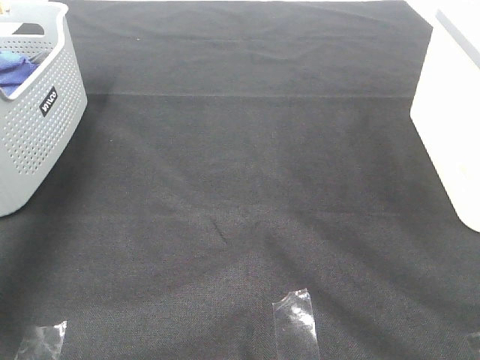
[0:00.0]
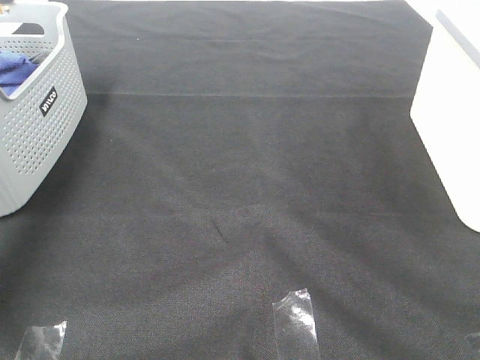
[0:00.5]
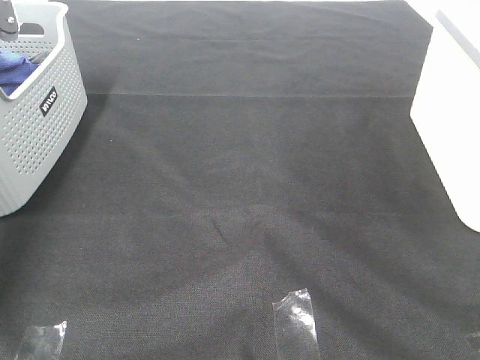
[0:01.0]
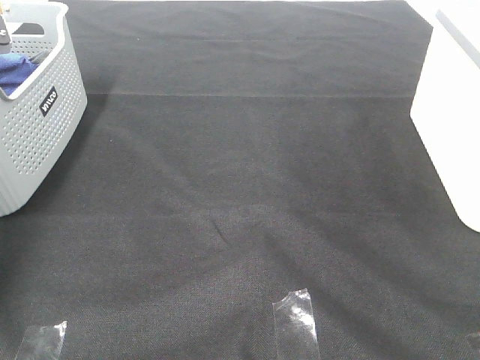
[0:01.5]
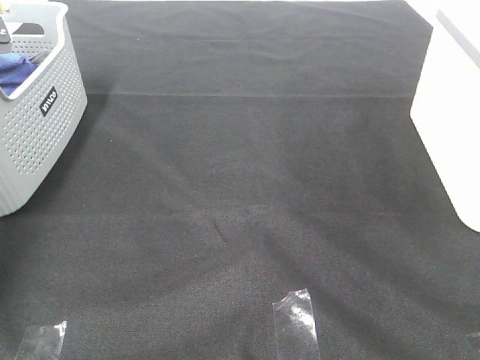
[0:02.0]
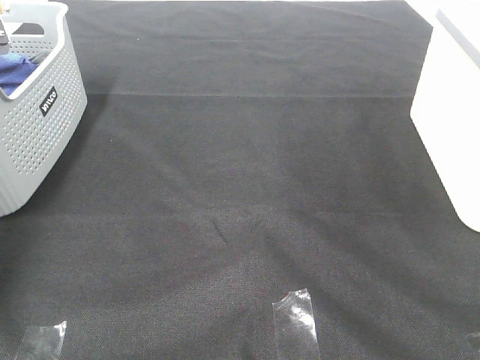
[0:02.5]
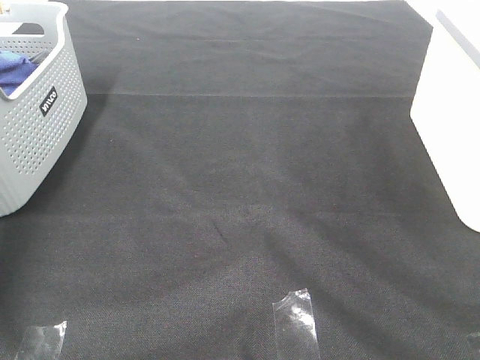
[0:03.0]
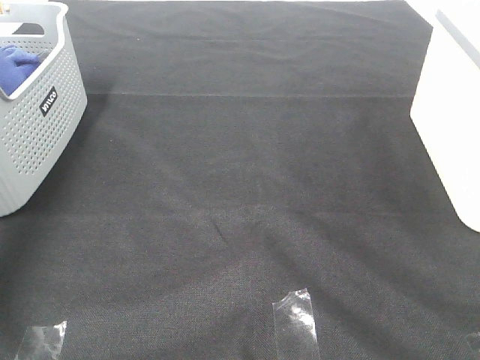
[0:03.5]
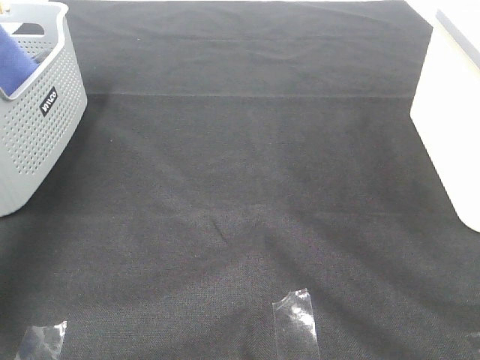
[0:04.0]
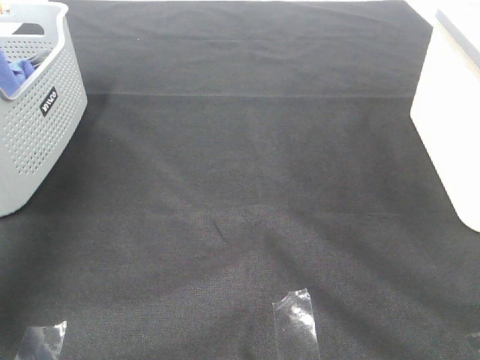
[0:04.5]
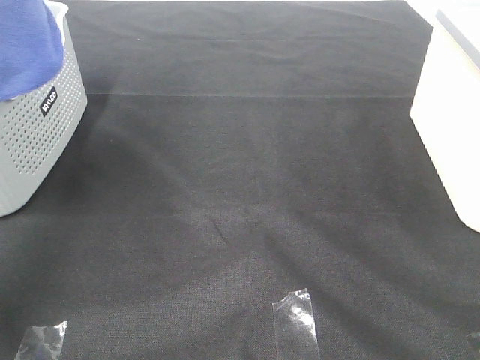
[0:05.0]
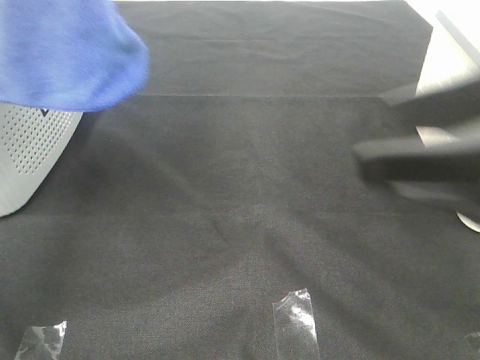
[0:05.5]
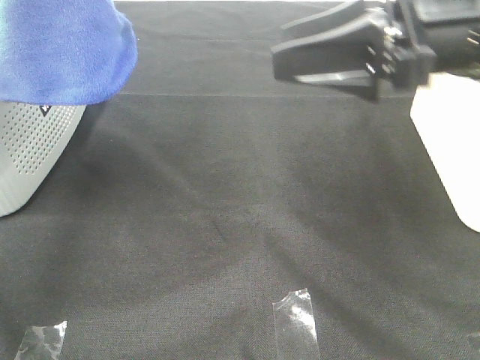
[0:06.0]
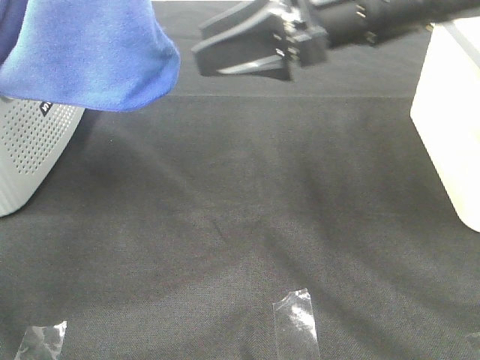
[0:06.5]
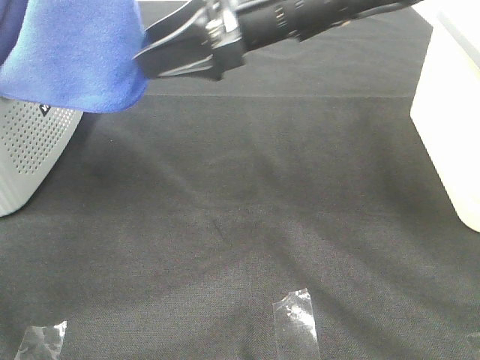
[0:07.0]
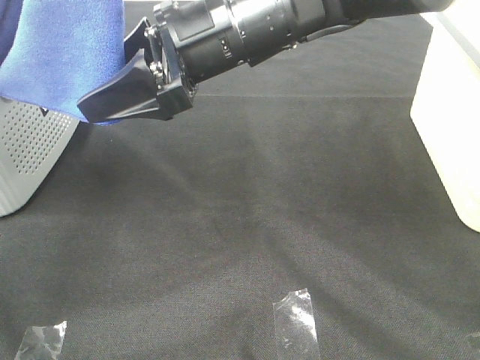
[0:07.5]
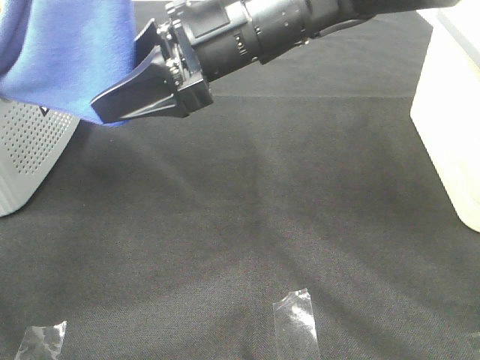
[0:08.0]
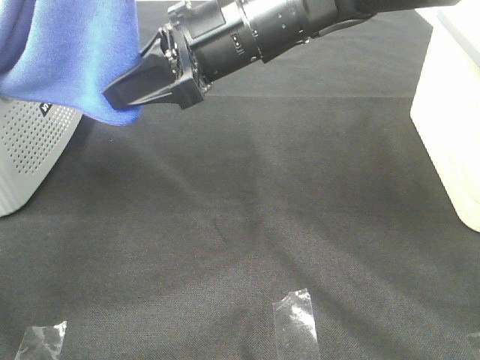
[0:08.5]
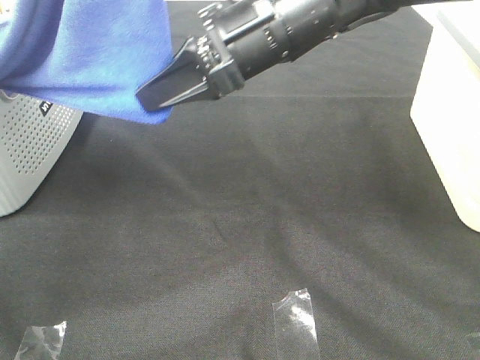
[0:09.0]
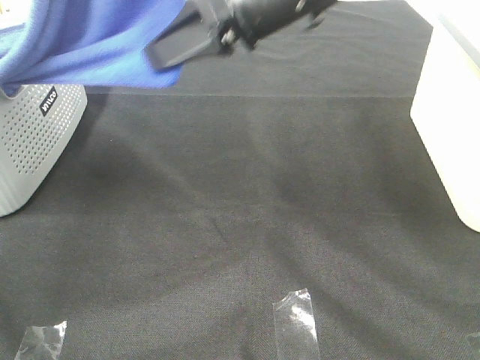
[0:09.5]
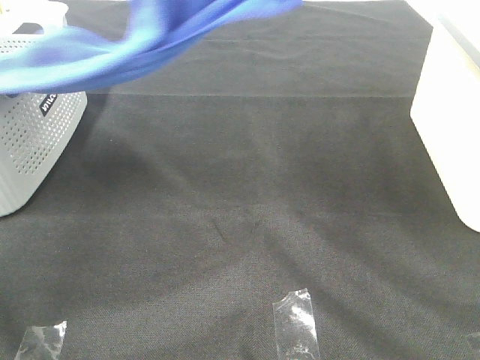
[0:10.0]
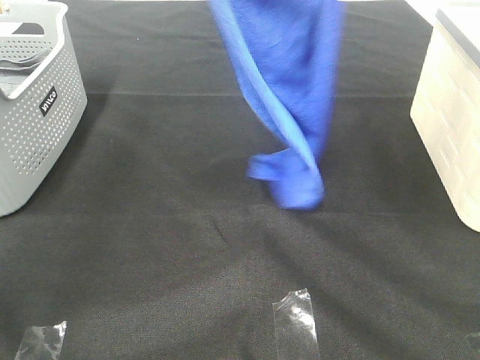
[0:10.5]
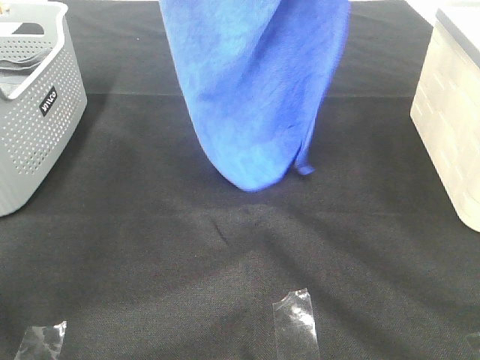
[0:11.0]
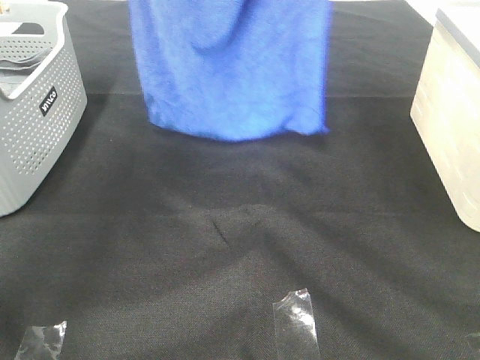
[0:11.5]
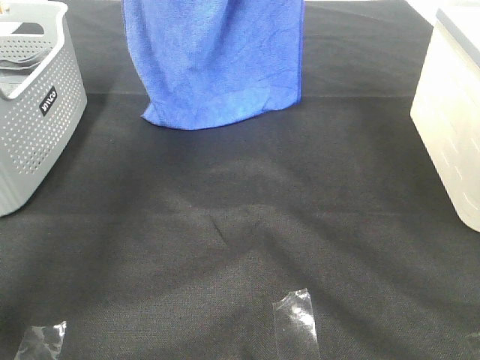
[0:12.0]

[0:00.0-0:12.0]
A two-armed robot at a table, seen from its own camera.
Task of the whole recording: Remove the towel and place it.
Step, 0:05.0 to 0:08.0: Right hand: grab a corner of the blue towel and straighten it.
0:00.0 to 0:02.0: The left gripper travels downward and forward by about 25 cm, and closes its fingers.
0:02.0 to 0:04.0: The left gripper moves upward and backward, roughly 40 cm.
0:04.0 to 0:06.0: The left gripper is displaced to the right by roughly 15 cm. The right gripper moves forward and to the left, some 30 cm.
0:06.0 to 0:08.0: The right gripper is displaced to the left by about 15 cm.
0:08.0 to 0:10.0: The right gripper travels upward and to the right by roughly 20 cm, and closes.
0:10.0 to 0:12.0: The right gripper goes about 15 cm forward. Meanwhile the left gripper moves forward and downward, roughly 20 cm.

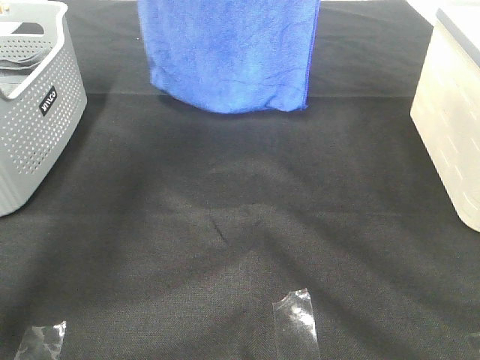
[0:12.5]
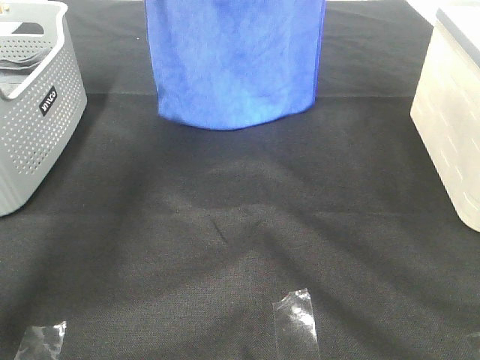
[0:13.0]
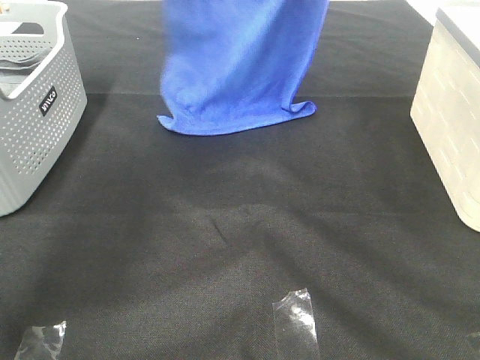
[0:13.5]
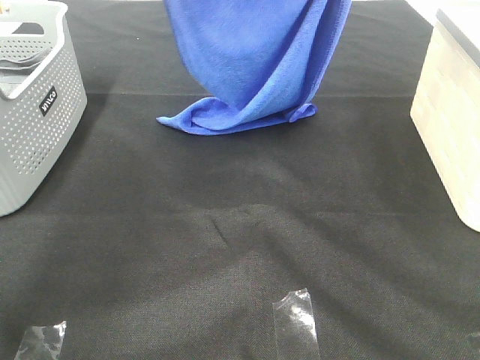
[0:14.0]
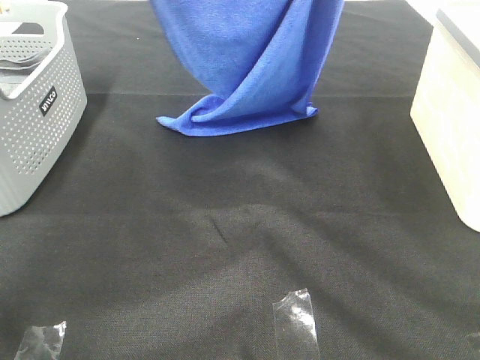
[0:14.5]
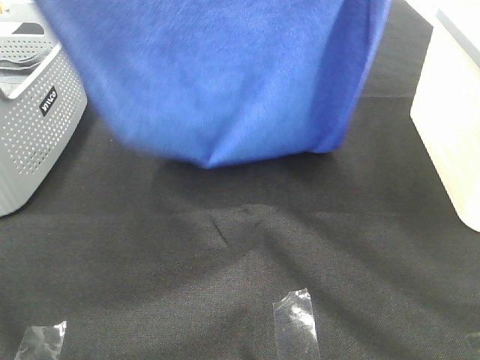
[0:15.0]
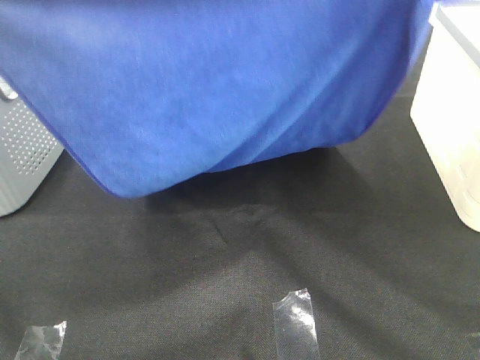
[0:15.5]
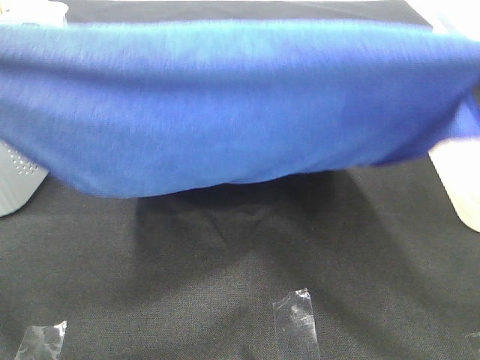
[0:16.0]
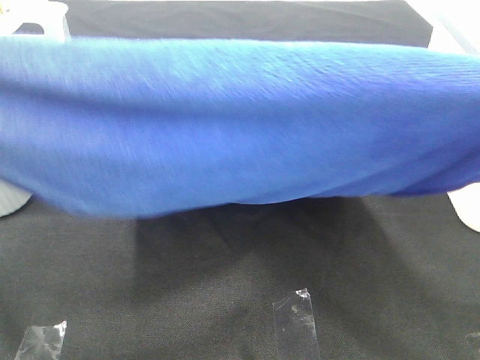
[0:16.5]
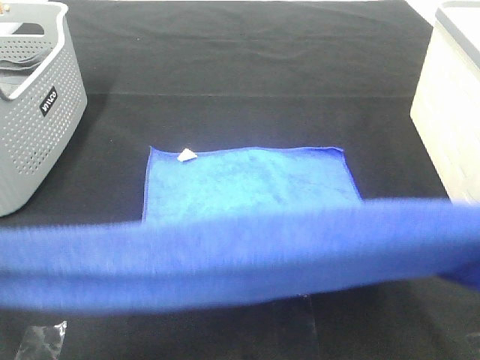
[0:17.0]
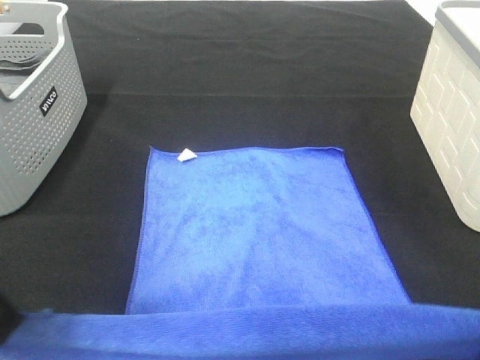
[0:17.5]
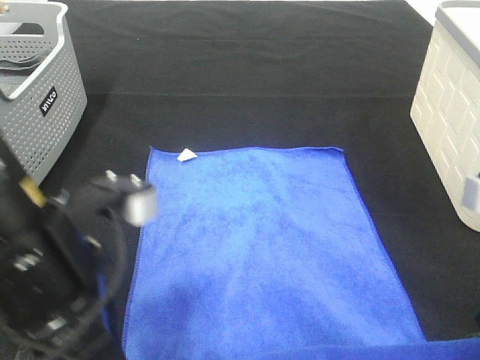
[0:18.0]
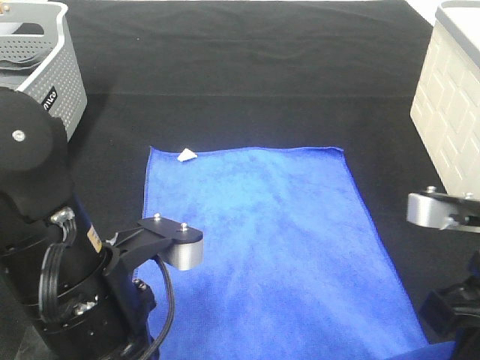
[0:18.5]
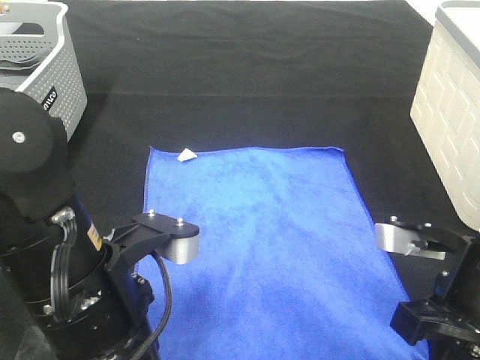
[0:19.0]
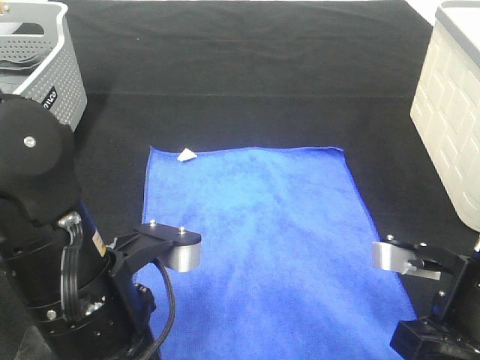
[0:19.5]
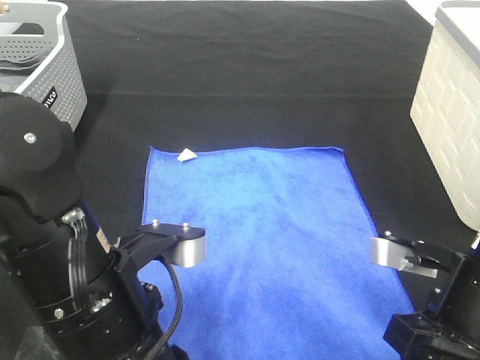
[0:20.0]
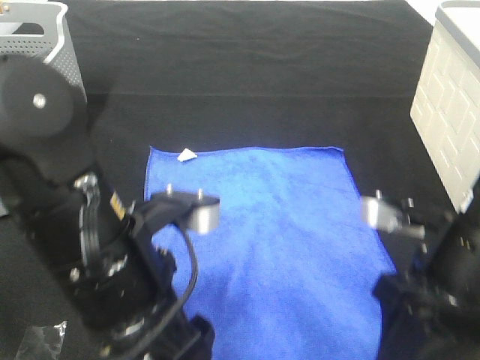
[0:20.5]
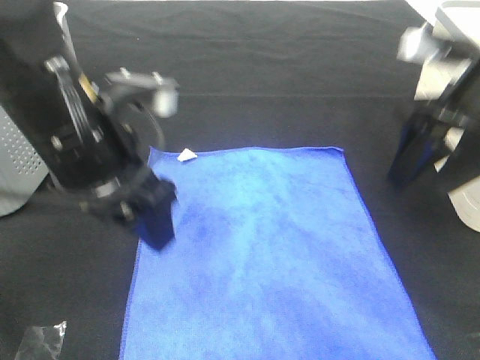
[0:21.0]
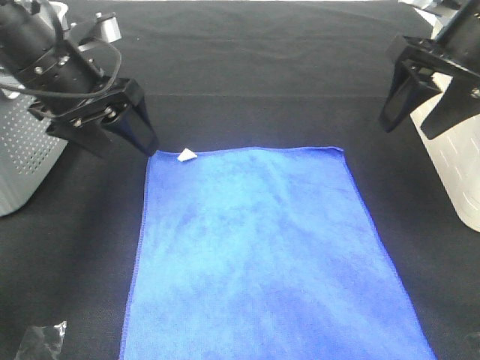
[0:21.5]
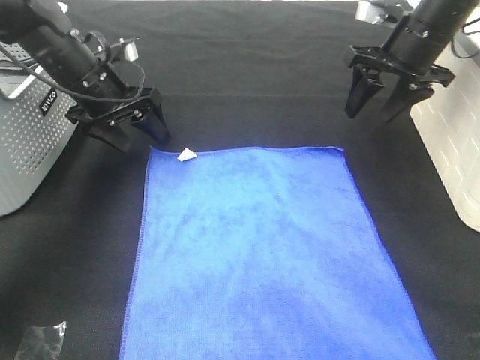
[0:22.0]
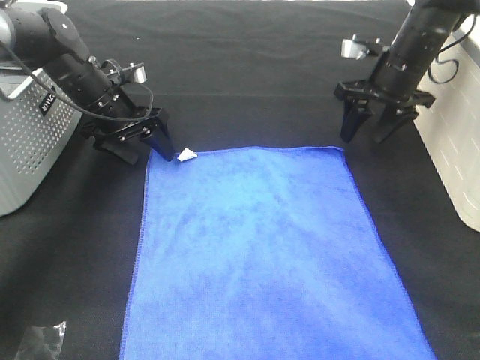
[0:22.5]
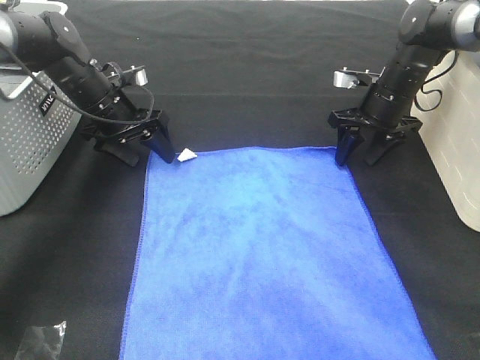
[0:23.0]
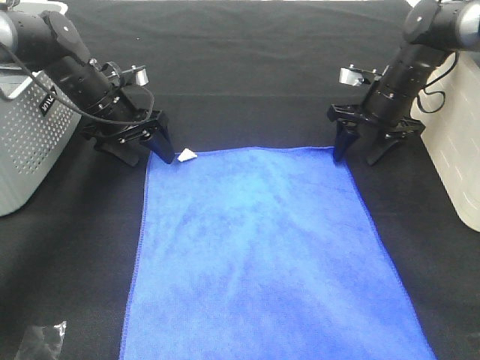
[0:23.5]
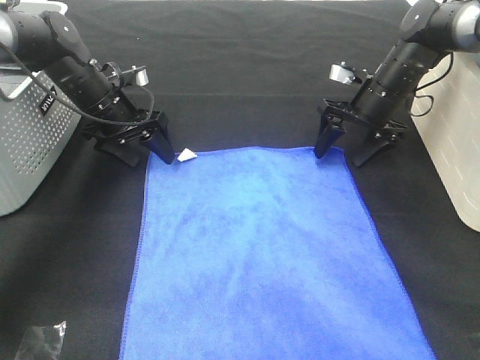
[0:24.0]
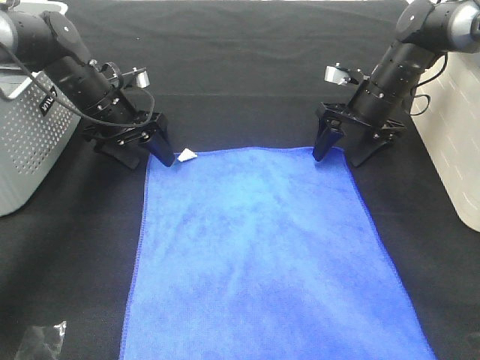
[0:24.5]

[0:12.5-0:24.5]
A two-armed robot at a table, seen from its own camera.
Task of the whole recording: Remove the towel and place it.
Step, 0:12.5 to 0:15.0: Left hand: spread the blue towel flat on the table.
Step, 0:12.5 to 0:15.0: Right hand: spread the blue towel flat on the table.
Step, 0:15.5 to 0:23.0: Left hand:adjust the blue towel.
Step, 0:15.5 to 0:23.0: Right hand:adjust the blue towel.
0:12.5 to 0:14.5: The grippers both shift backward by about 10 cm.
0:14.5 to 0:16.5: Both grippers travel together backward, approximately 25 cm.
0:16.5 to 0:18.5: The right gripper travels downward by about 20 cm; the left gripper is displaced downward and to the right by roughly 25 cm.
0:18.5 to 0:20.5: The left gripper opens its fingers; the right gripper opens up.
0:20.5 to 0:22.5: Both grippers move forward, roughly 30 cm.
0:22.5 to 0:24.5: The right gripper changes place by roughly 5 cm.

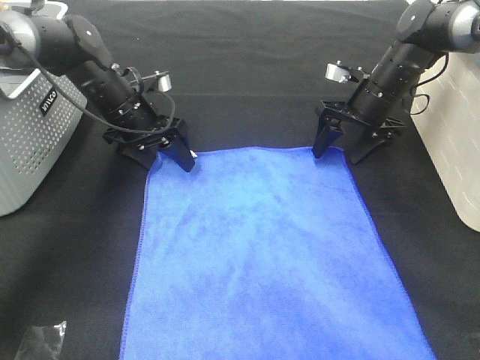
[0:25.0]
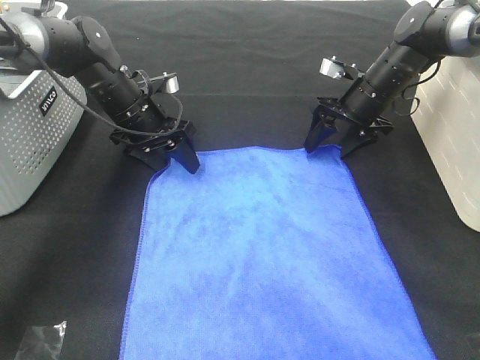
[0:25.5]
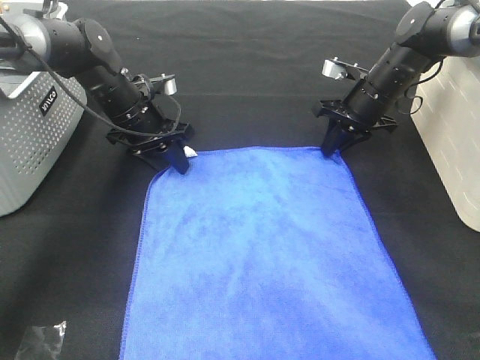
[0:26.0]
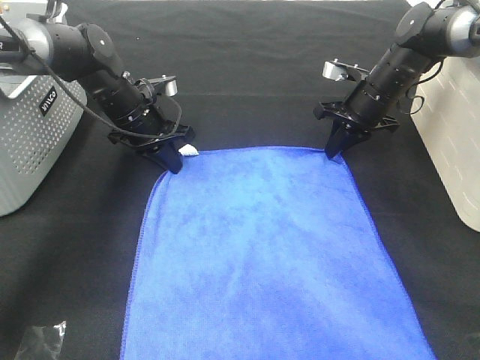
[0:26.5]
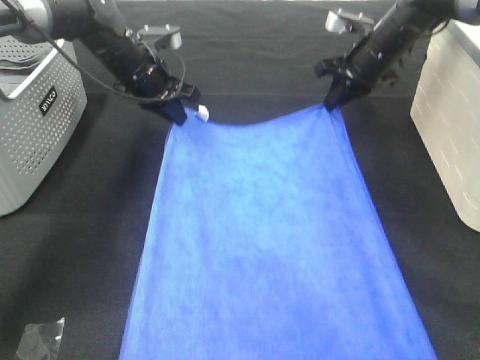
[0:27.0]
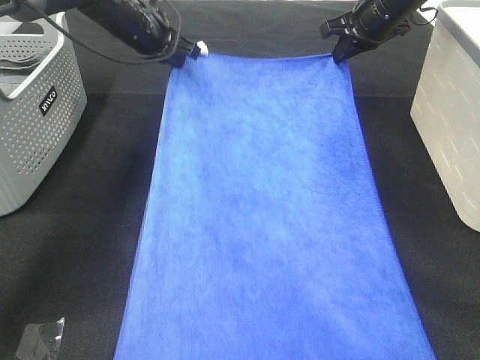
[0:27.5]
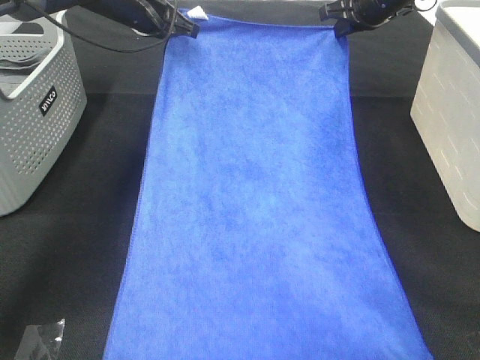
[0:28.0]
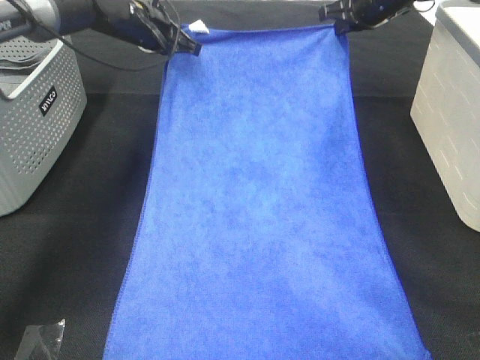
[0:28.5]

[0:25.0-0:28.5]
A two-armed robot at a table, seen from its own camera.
Task of the whole recording: Remove the towel and place it.
0:25.0 to 0:27.0: The left gripper moves roughly 5 cm, and closes its fingers; the right gripper shifts some 5 cm upward, and closes up.
0:27.0 to 0:28.5: The left gripper is displaced forward by some 5 cm. The right gripper goes approximately 5 cm upward.
